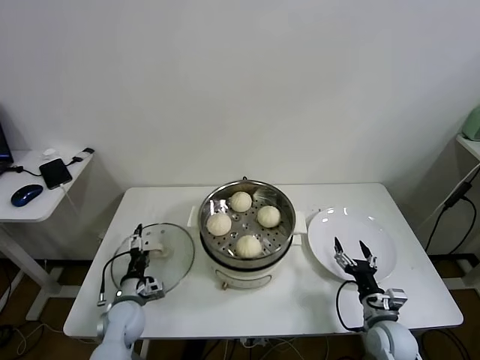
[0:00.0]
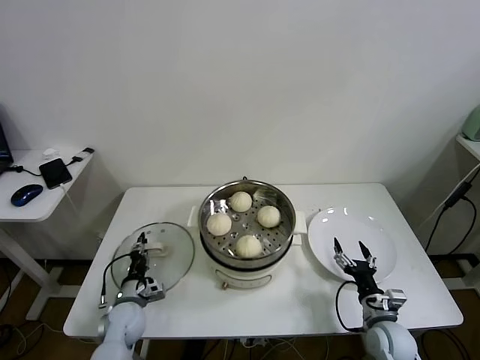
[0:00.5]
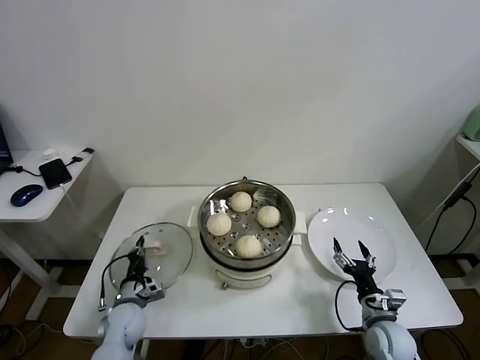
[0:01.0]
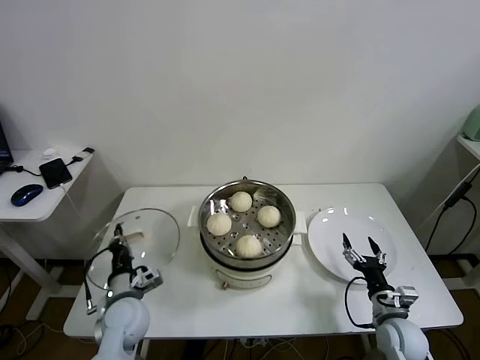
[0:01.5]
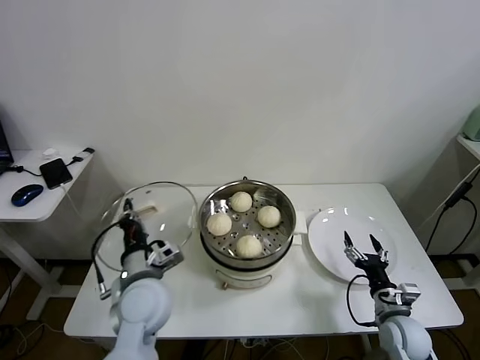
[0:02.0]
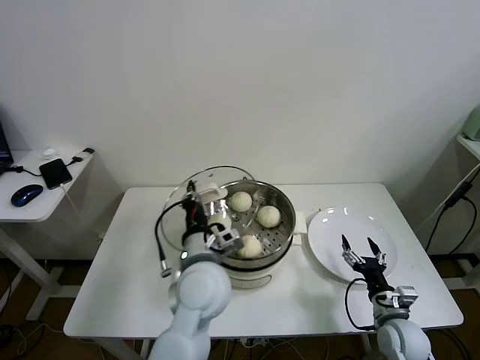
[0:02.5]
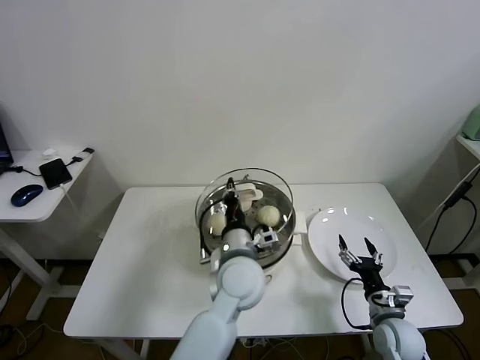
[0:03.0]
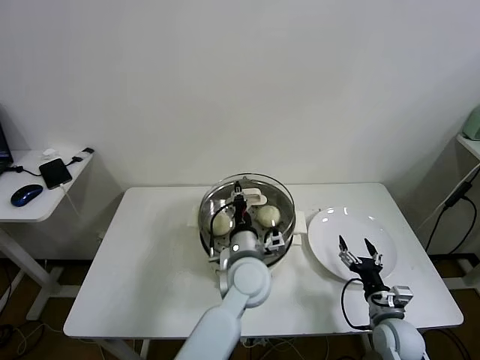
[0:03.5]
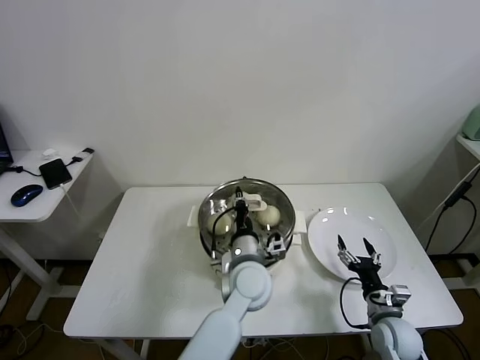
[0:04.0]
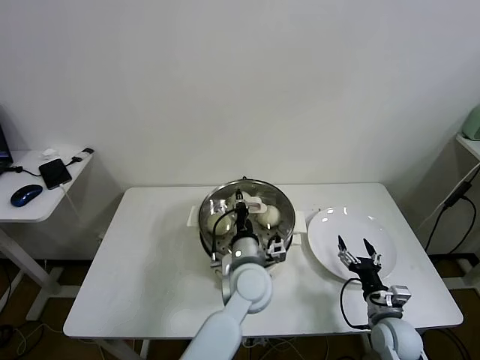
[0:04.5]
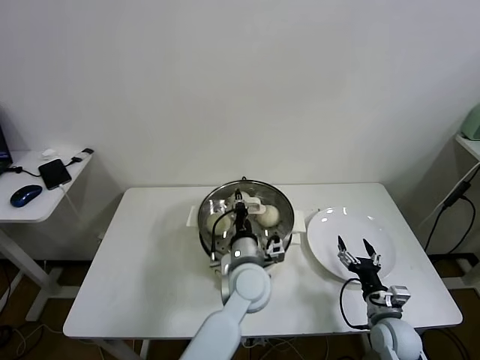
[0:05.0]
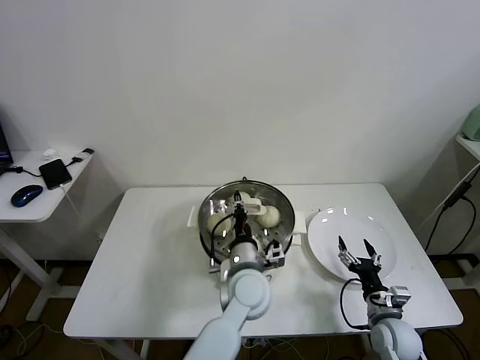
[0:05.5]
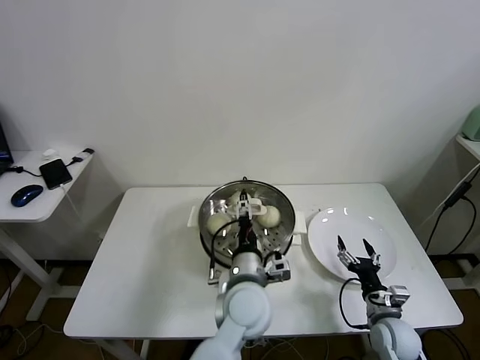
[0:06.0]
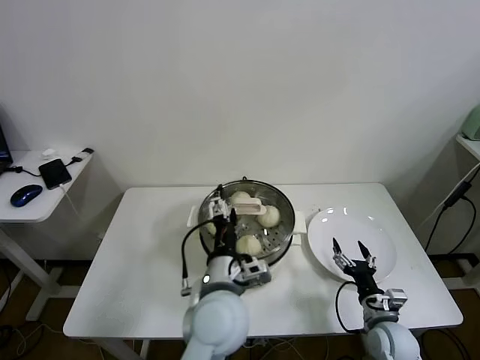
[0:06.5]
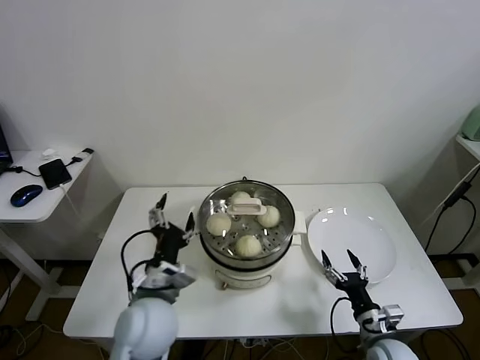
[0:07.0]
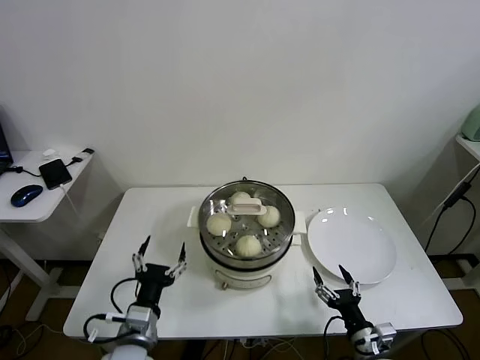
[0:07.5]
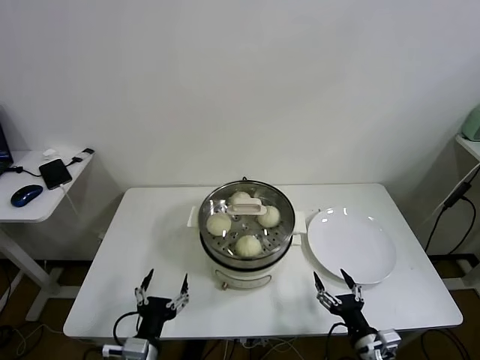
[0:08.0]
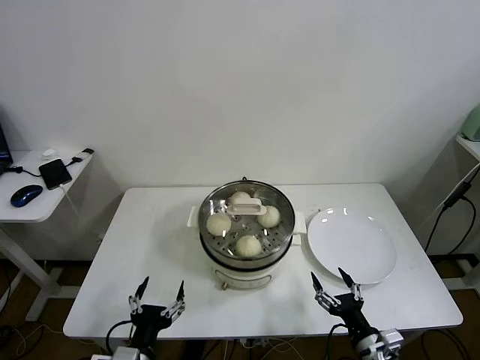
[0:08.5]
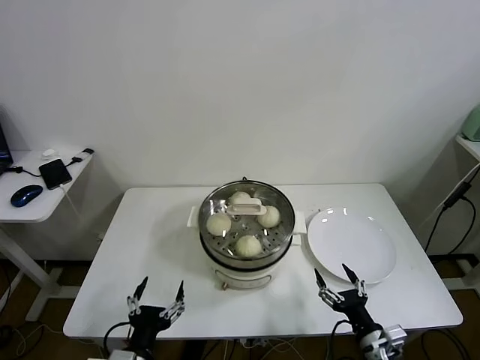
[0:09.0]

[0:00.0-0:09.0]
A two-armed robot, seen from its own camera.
Task of the whole recording: take steamed baozi put them in steamer.
Step, 0:01.0 to 0:05.5: Place the pot lid on the steamer with left gripper.
0:00.0 to 0:02.0: The left gripper shifts about 20 cm upward and to the right, and closes its fingers.
0:02.0 to 0:04.5: The left gripper moves to the right, roughly 20 cm.
0:04.5 to 0:07.0: The left gripper travels to the left and backward by approximately 20 cm, and opens.
0:07.0 to 0:09.0: The right gripper moves backward, roughly 5 cm. Meanwhile the left gripper heads backward, downward and to the left, covering about 20 cm.
